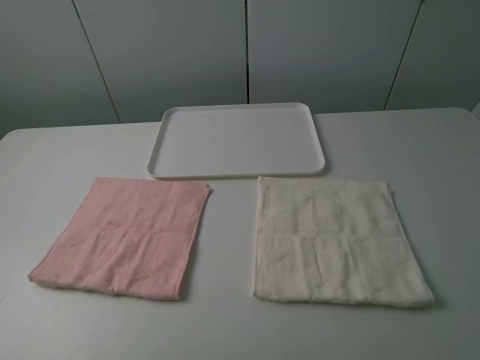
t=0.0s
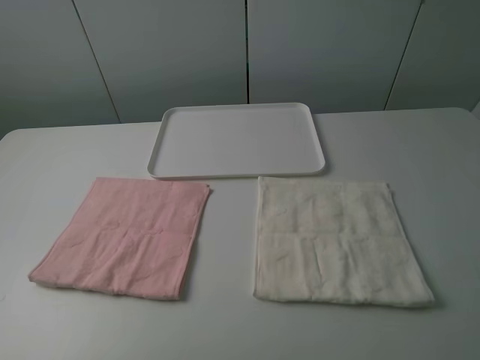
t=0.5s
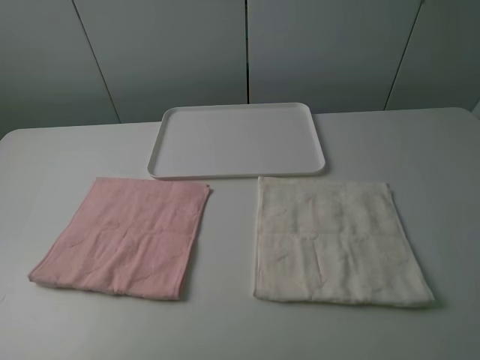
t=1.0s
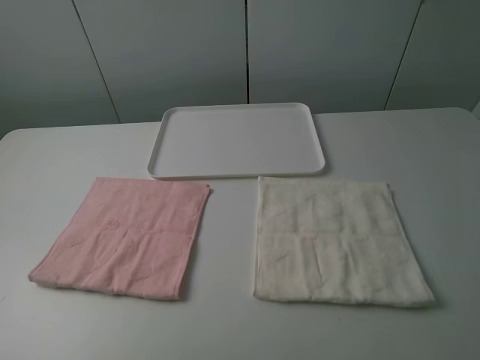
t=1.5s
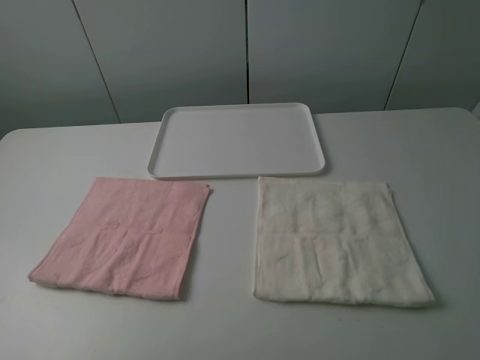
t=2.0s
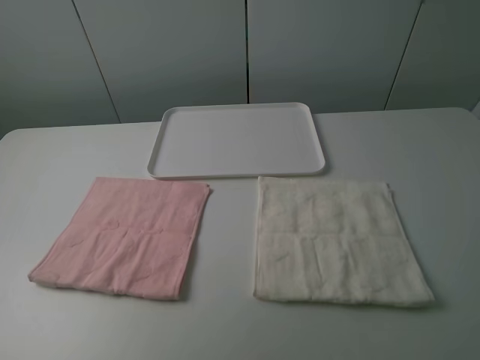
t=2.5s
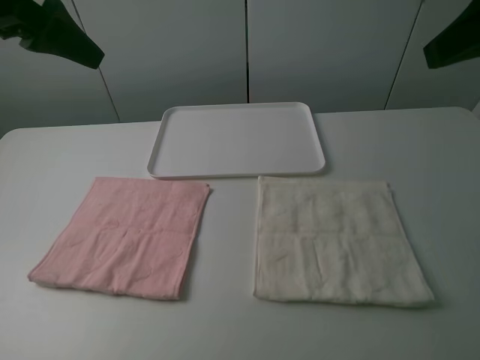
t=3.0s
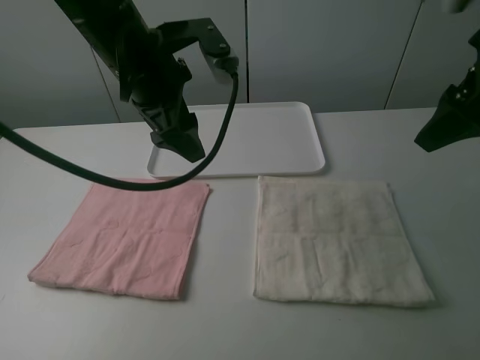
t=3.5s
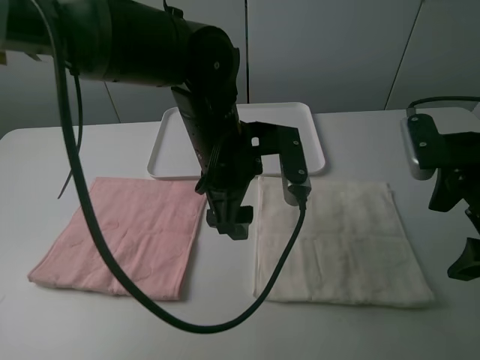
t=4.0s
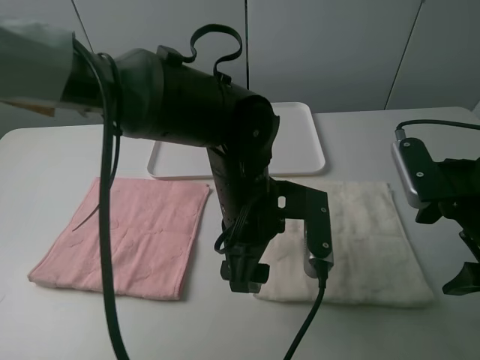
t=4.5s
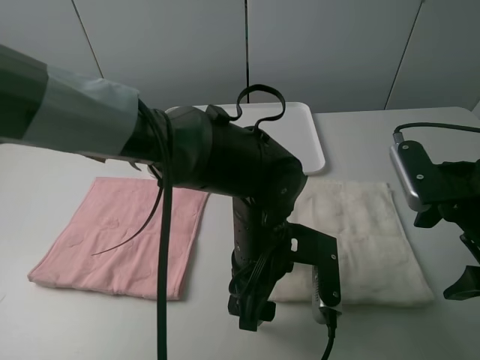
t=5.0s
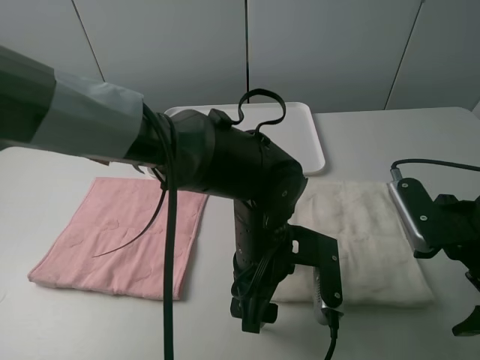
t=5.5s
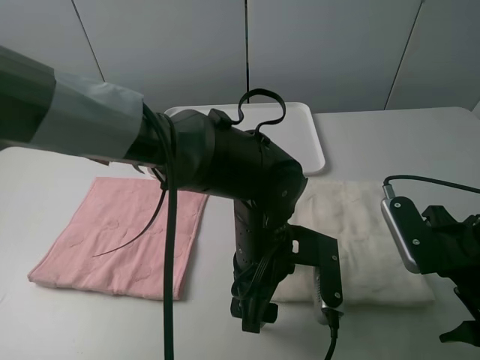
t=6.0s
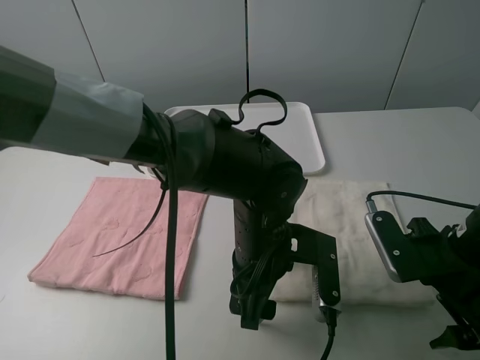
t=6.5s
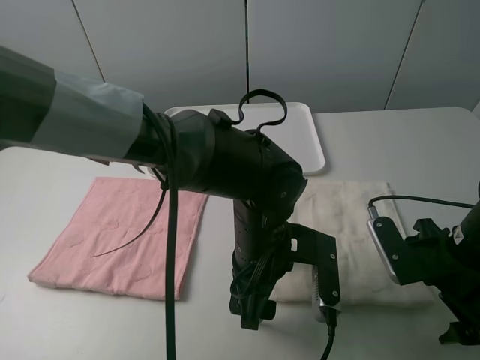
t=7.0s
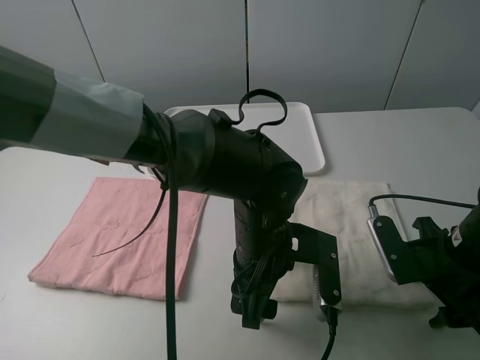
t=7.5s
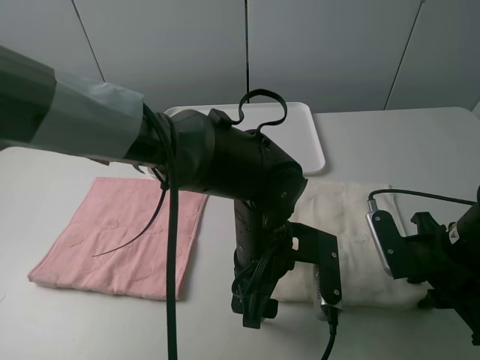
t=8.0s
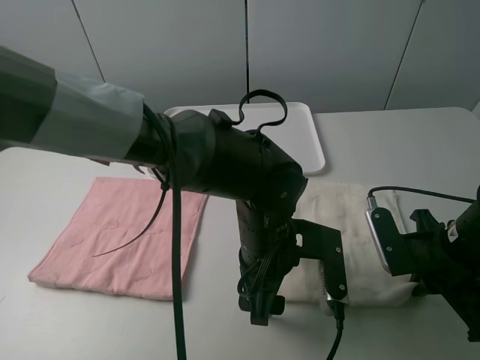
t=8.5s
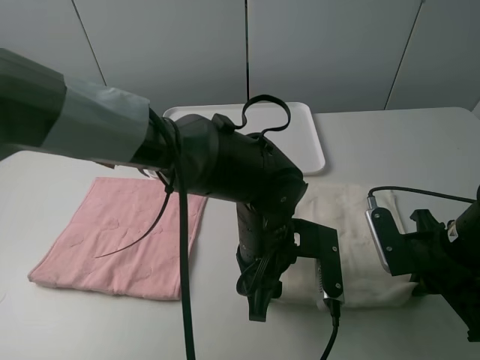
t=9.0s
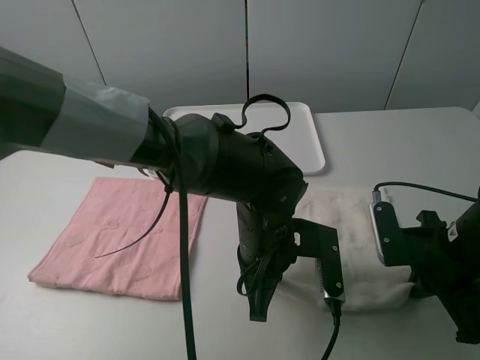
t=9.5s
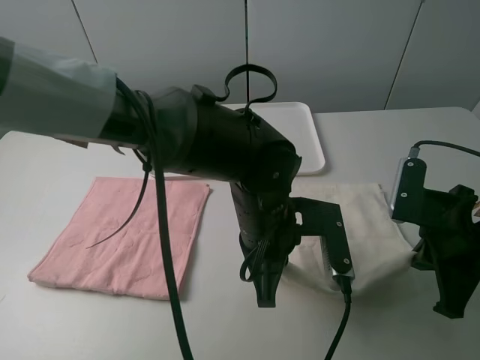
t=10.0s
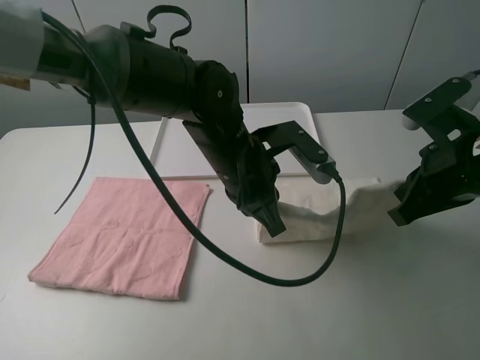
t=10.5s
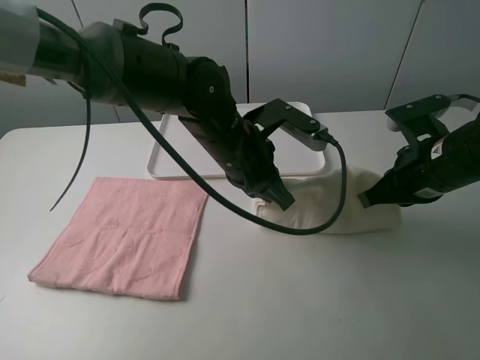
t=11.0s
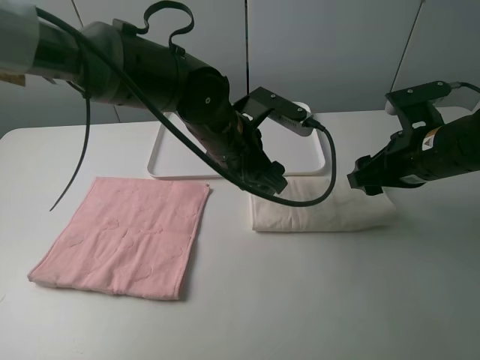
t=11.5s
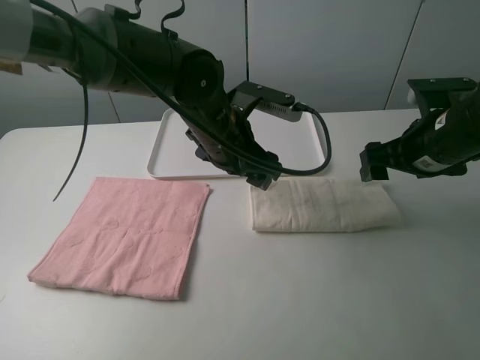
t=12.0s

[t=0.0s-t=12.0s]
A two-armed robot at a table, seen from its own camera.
Task of the whole recording: fold one of the towels by two grippers and place it on the tray,then fold another towel by two grippers and place it on the folded towel.
Step, t=0.0s to t=9.0s: Grasp the white towel with the left gripper.
Step, t=9.5s to t=11.5s: Fold the white towel upwards with the left gripper.
t=0.0s to t=2.0s: Neither gripper changes place.
t=2.0s to t=4.0s: The right gripper moves forward, about 20 cm, while the left gripper is displaced to the right and forward by roughly 40 cm.
t=4.0s to t=6.0s: The left gripper is displaced downward and backward by approximately 10 cm; the right gripper moves downward, about 5 cm.
t=6.0s to t=8.0s: The right gripper closes its fingers.
t=8.0s to t=10.0s: The left gripper closes up.
t=10.0s to t=12.0s: The right gripper goes some 10 cm forward, and opens its fingers. The left gripper heads forward and to the left, covering about 10 cm, and opens.

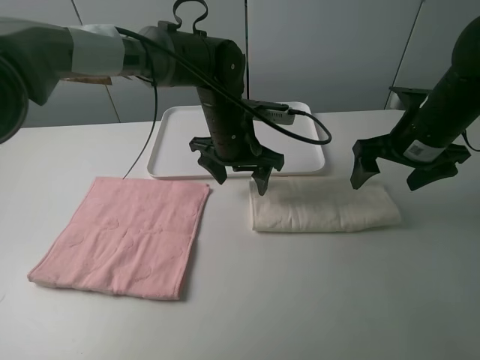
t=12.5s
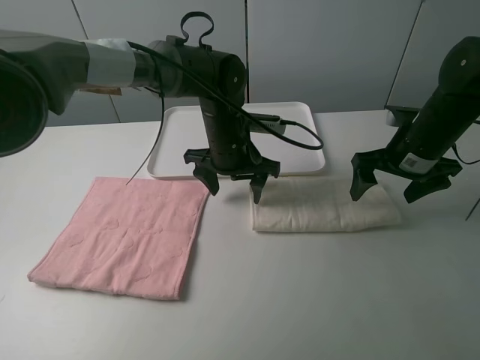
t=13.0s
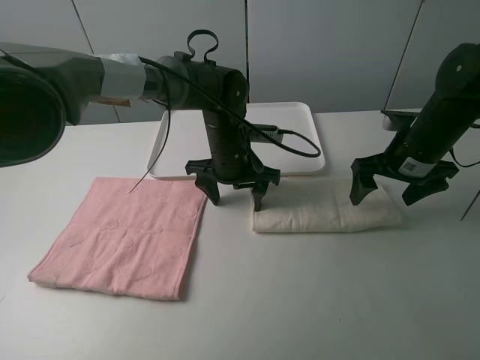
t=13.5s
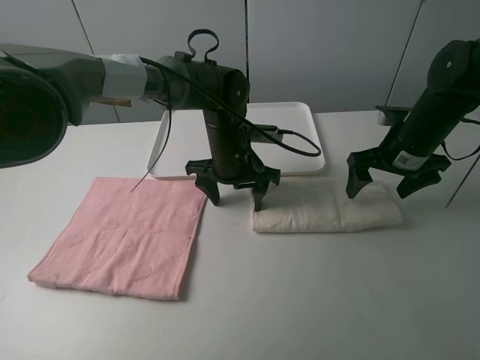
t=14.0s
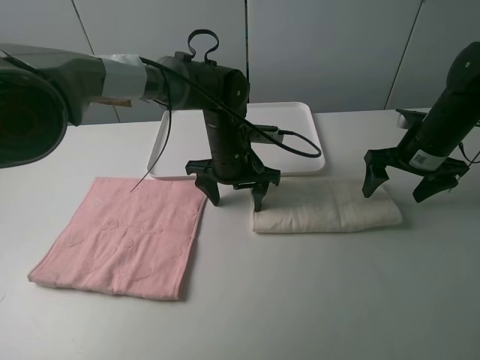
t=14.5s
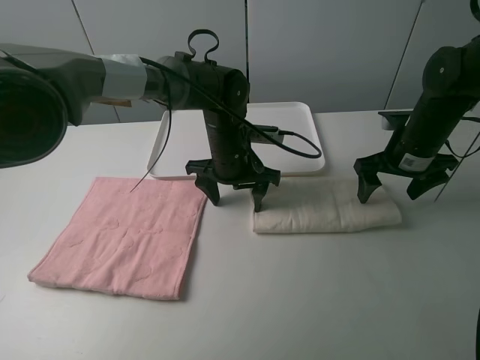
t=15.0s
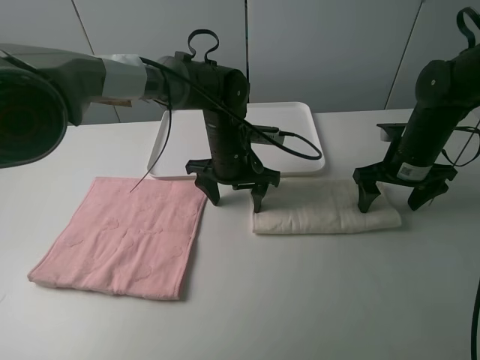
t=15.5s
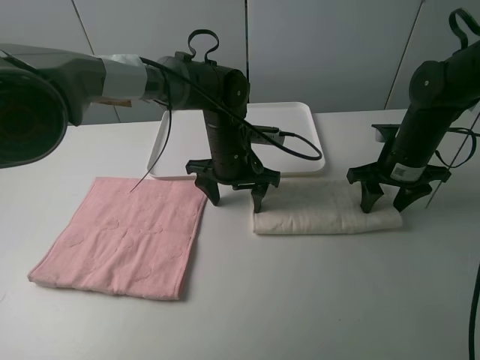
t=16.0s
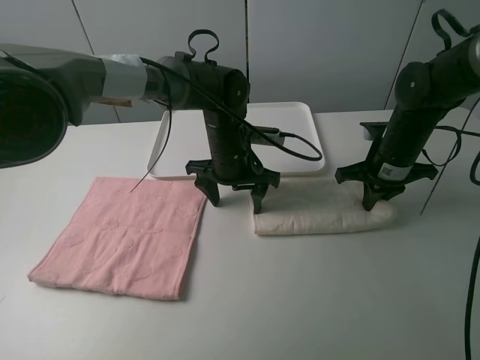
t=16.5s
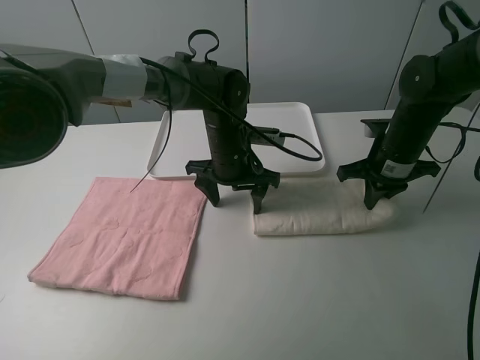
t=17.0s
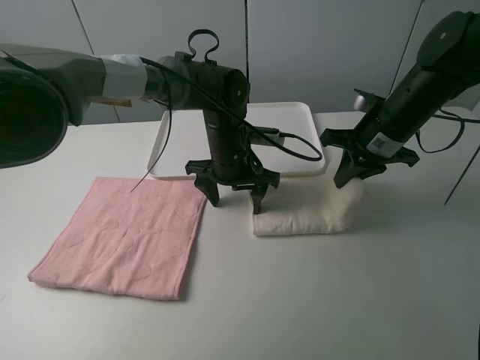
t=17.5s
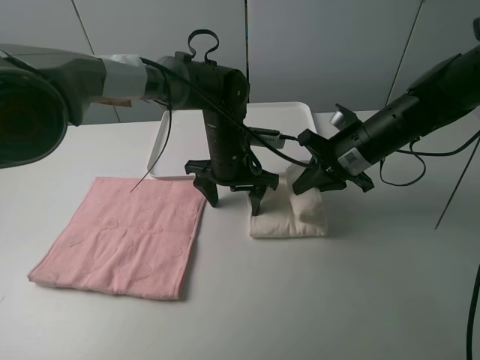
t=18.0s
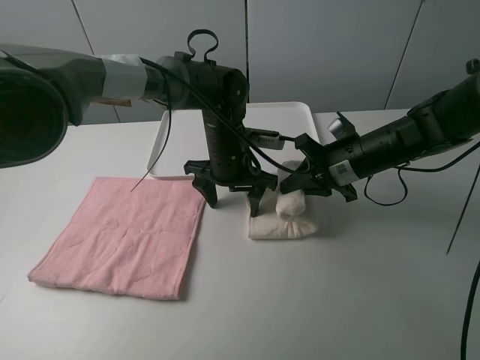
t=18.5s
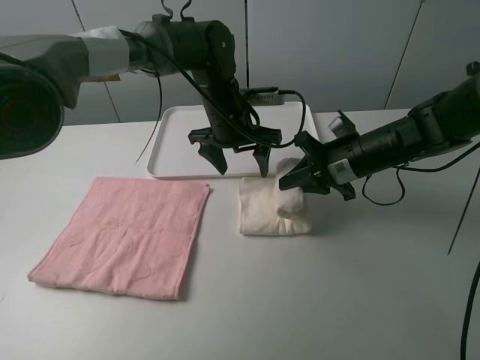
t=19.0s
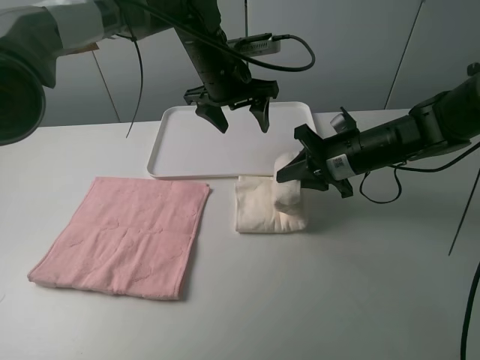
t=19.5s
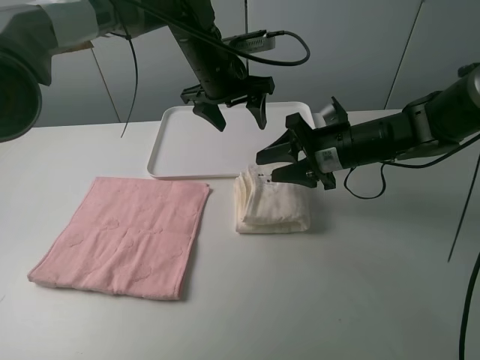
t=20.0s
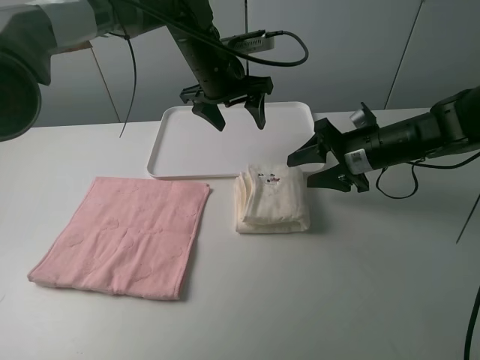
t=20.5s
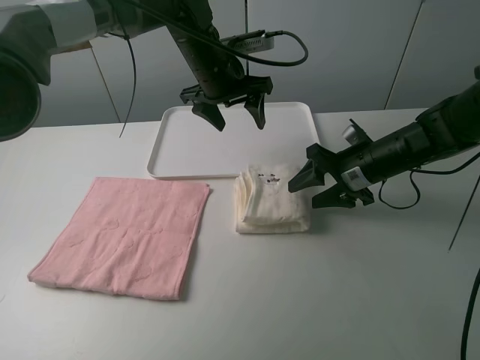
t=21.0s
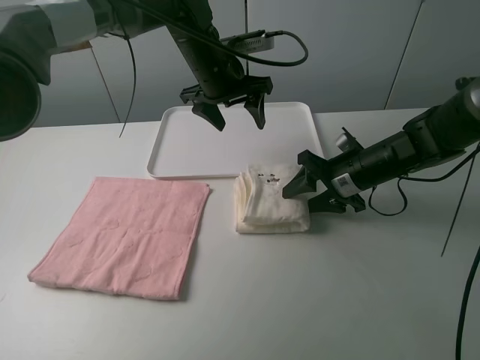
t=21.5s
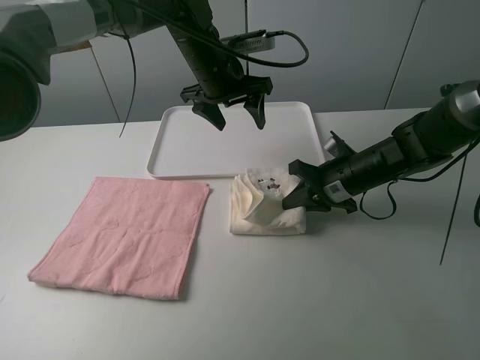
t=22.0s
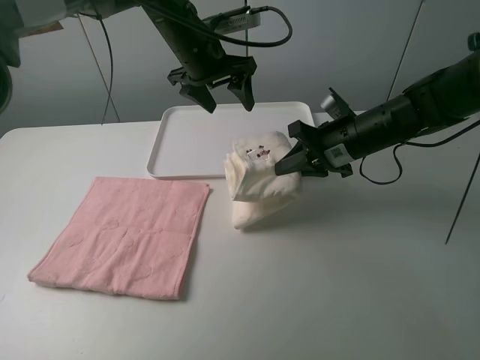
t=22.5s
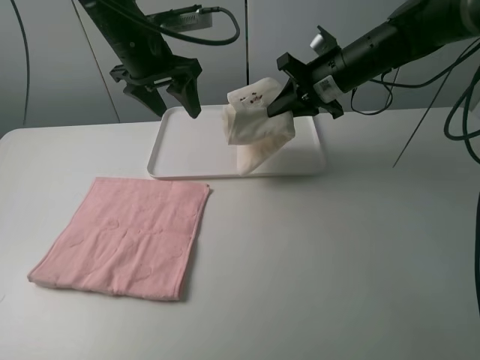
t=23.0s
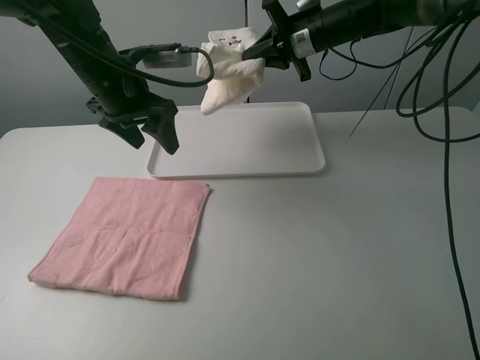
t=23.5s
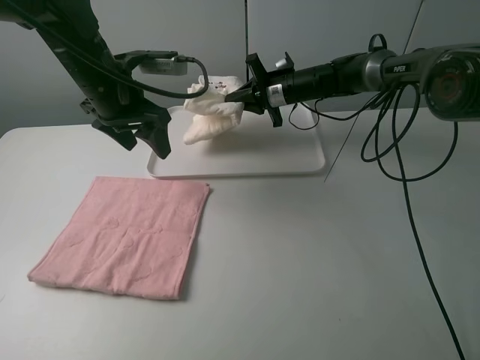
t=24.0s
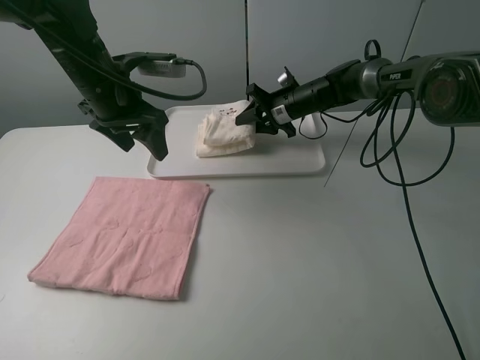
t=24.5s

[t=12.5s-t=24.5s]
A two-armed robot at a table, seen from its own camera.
Task of the whole recording: fold one of the towels by two grippers and place it on the tray,then fold another towel by two grippers and place it on the folded towel.
Step, t=14.0s to t=16.5s: Grasp the white towel with the right gripper.
Step, t=17.0s to t=20.0s: Fold the white towel from right to left with right gripper.
Step, t=20.5s to t=22.0s: Grasp the white towel with the right gripper.
t=12.5s to t=14.5s: The right gripper moves about 5 cm.
t=14.5s to t=16.5s: The right gripper closes.
t=16.5s to t=18.5s: The right gripper moves to the left, roughly 5 cm.
t=18.5s to t=20.5s: The right gripper opens up. The left gripper travels upward and forward by roughly 15 cm.
t=20.5s to t=22.5s: The right gripper shifts by some 5 cm, and closes its fingers.
t=22.5s to t=24.5s: The left gripper is displaced to the left and backward by some 15 cm. Meanwhile the right gripper heads forward, covering some 15 cm, and opens up.

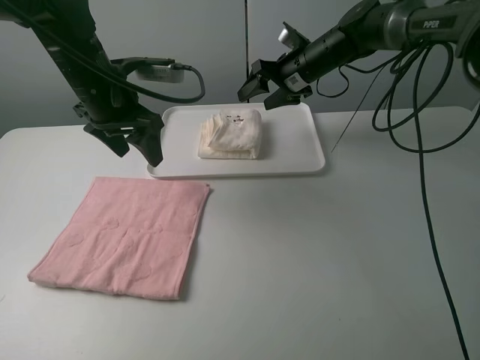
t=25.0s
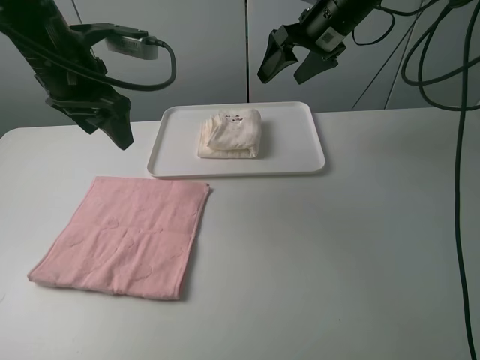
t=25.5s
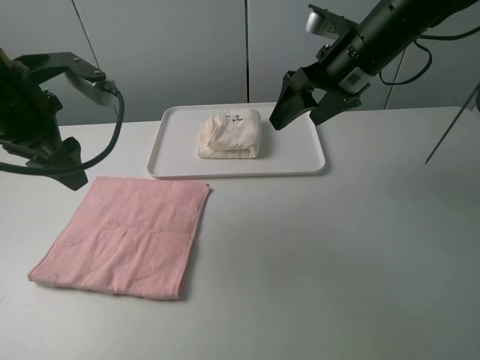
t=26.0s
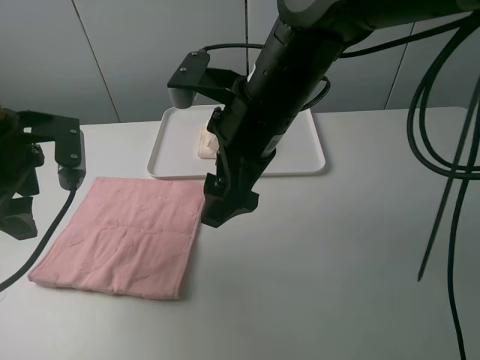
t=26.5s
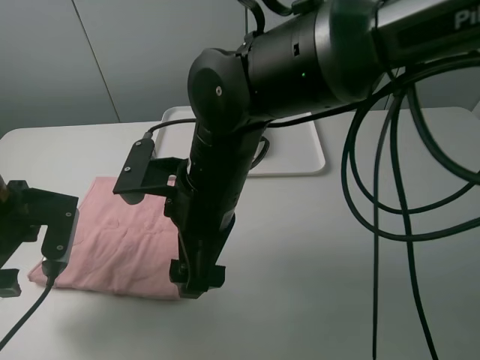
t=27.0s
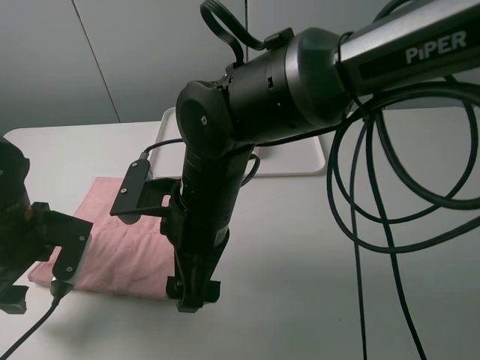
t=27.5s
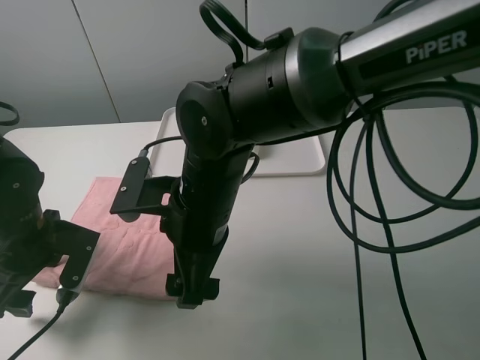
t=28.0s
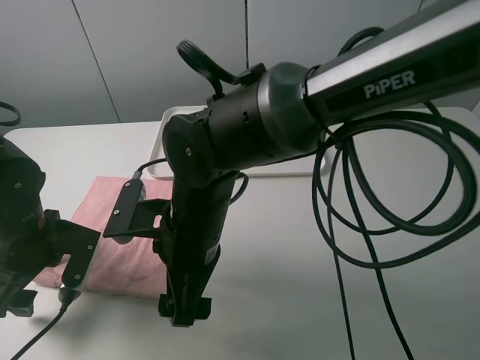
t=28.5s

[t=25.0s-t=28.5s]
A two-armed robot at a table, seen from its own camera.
Task of the whole recording: fold one of the towels by two grippers and place it on the tray,then fold another towel by two grippers and place it on the folded towel.
t=25.0s to t=27.0s: The left gripper heads backward, to the left and downward, covering approximately 20 cm. Meanwhile the right gripper heads backward and to the left, covering roughly 35 cm.
t=27.0s to t=28.5s: The left gripper goes approximately 5 cm downward.
